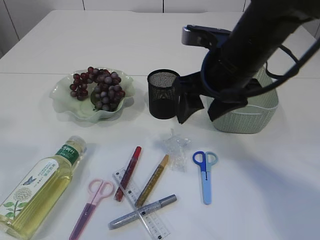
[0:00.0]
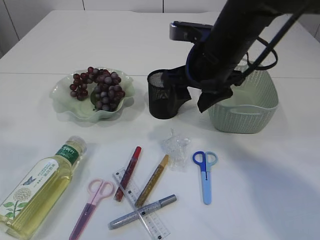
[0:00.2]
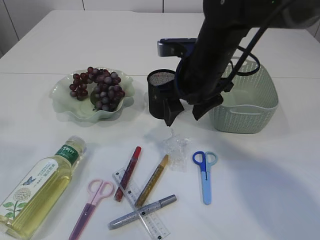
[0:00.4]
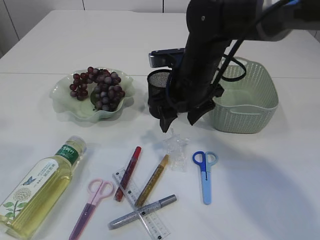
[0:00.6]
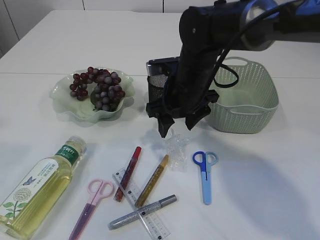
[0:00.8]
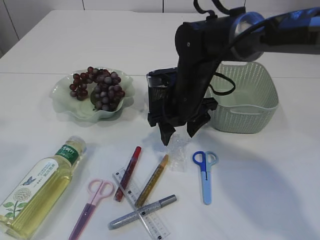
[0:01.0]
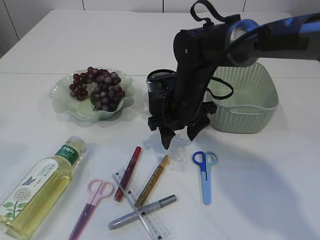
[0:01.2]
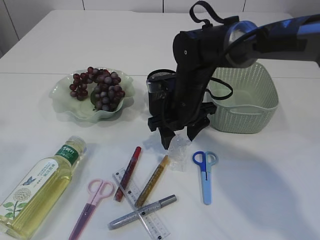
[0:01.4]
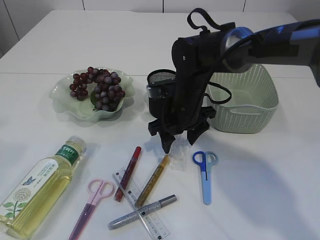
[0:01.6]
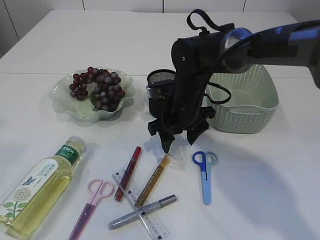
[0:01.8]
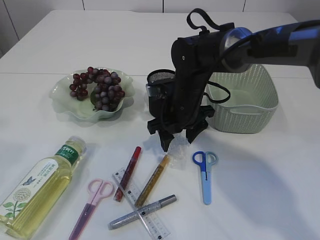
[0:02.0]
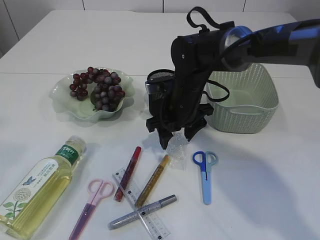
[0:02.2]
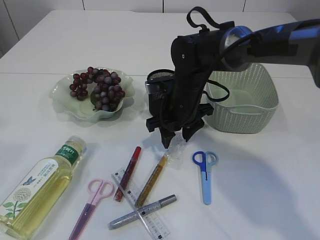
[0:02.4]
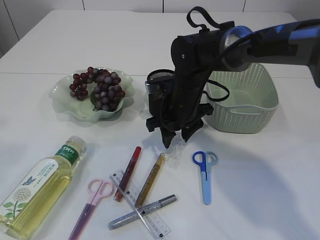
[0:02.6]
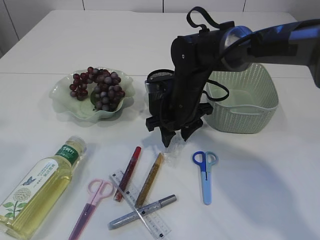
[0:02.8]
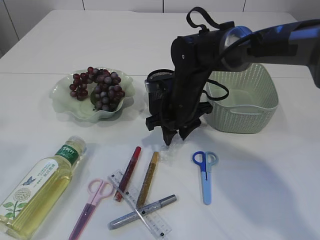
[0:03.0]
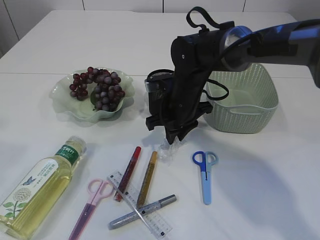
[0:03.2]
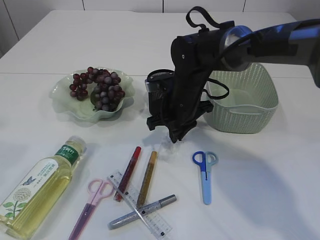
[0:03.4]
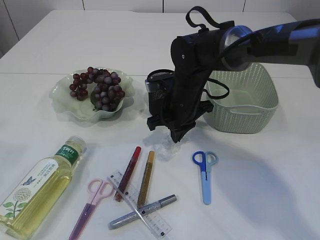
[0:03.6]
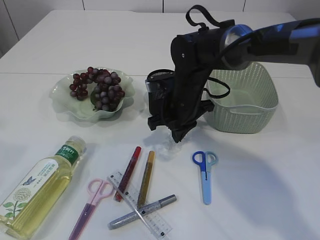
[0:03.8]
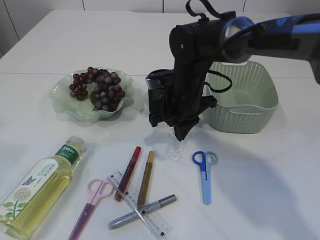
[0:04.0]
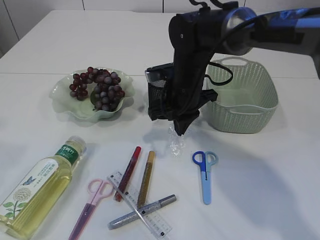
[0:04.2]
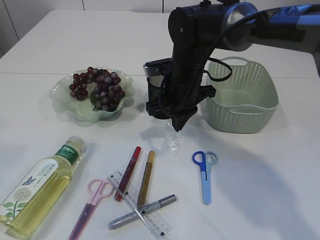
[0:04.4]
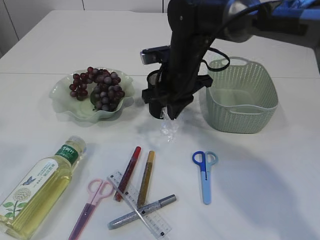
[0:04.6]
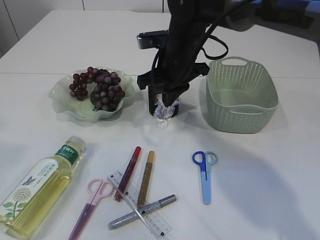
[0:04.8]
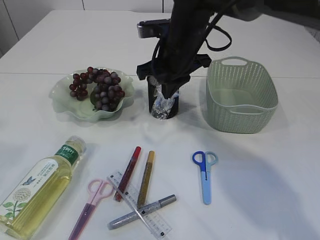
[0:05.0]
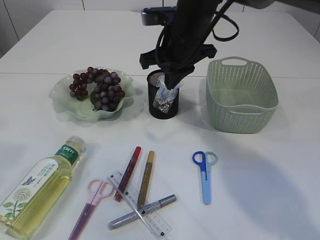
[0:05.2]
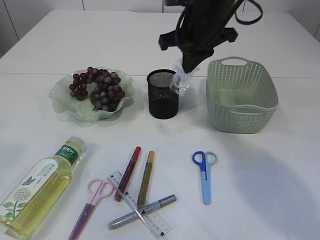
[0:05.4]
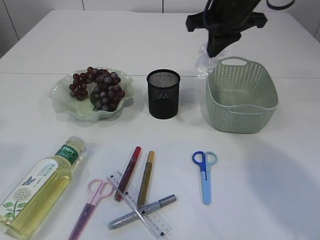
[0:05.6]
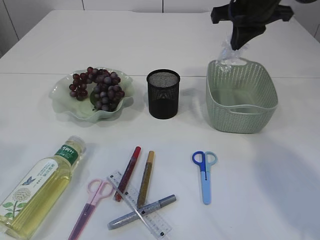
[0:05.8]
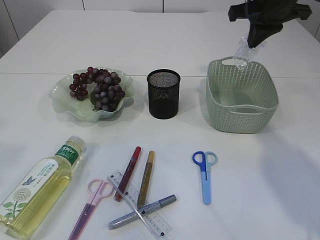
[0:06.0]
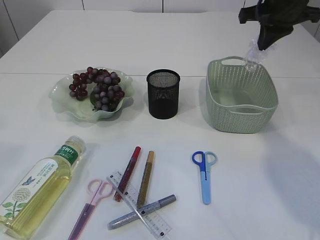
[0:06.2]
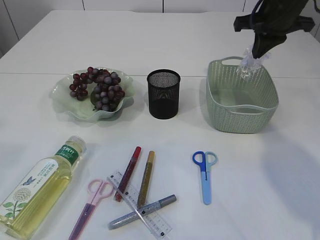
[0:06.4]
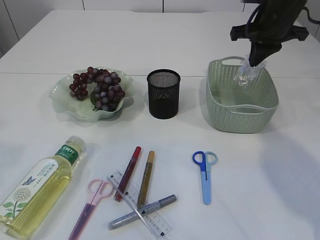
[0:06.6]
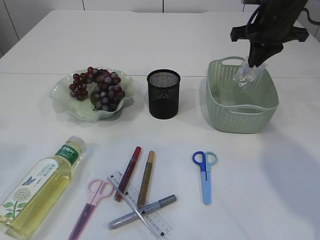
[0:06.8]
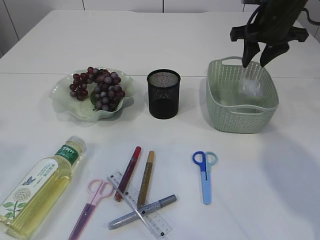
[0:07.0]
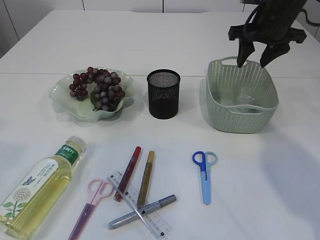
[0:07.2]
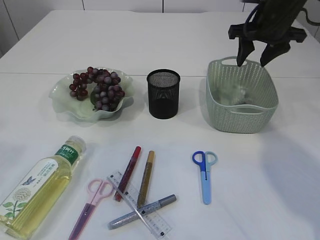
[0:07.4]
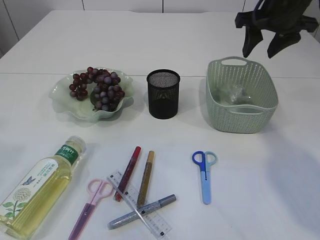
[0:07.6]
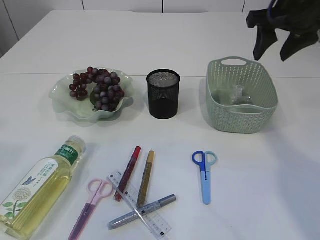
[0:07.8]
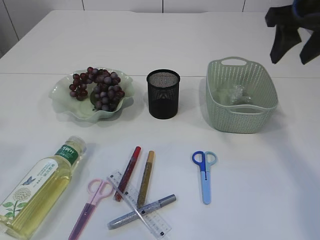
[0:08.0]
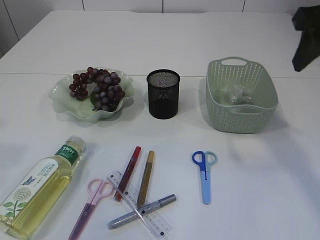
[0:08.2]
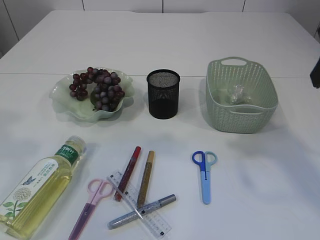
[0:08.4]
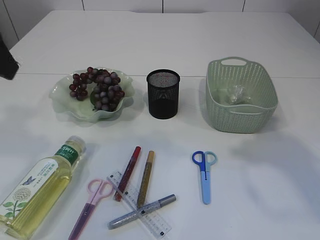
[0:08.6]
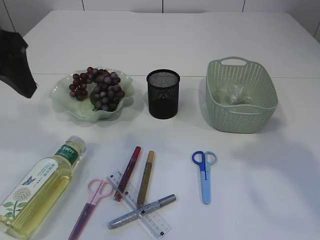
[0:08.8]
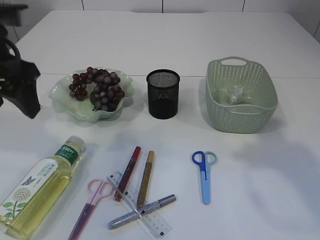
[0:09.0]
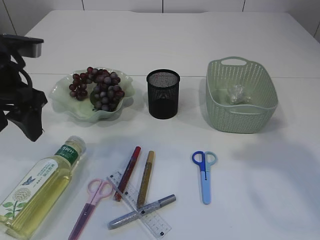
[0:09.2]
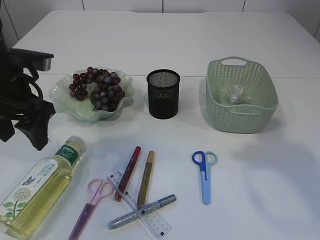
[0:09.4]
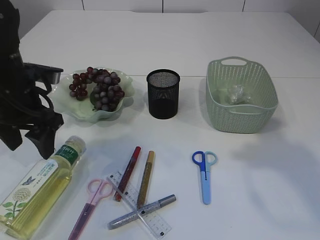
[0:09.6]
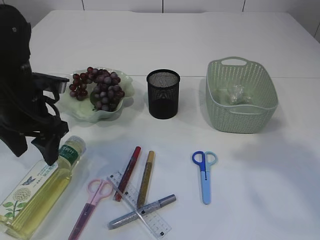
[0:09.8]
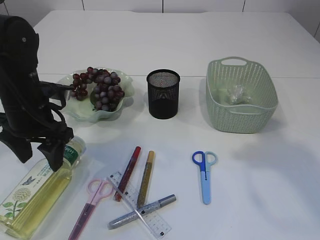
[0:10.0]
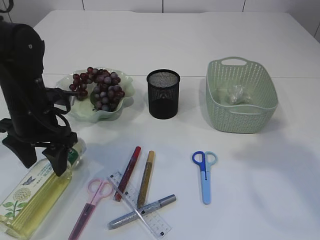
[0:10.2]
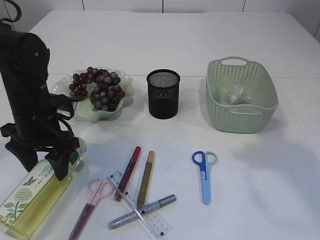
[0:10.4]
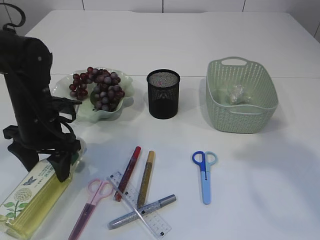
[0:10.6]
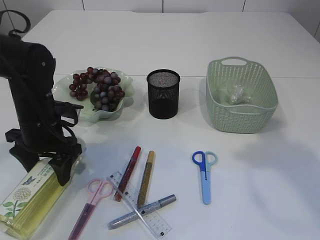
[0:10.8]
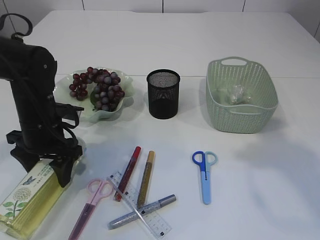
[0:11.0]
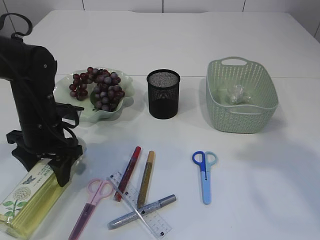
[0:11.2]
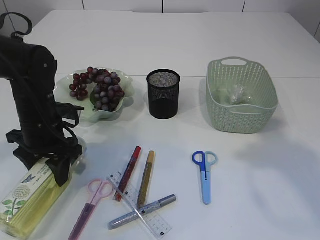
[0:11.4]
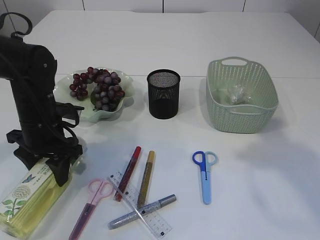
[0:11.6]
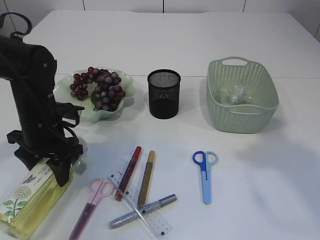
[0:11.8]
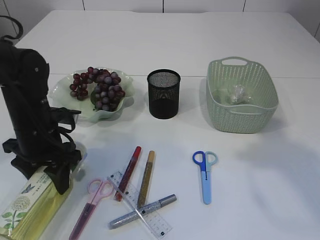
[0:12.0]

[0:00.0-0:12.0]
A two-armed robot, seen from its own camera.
Step, 0:00.0 to 0:04.2: Pick up the plastic.
Step, 0:04.4 to 0:07.2: Place the plastic in the basket.
0:00.0 to 0:01.6: The right gripper moves downward, forward and to the left, roughly 15 cm.
0:01.6 to 0:03.0: Both grippers stay put.
0:03.0 to 0:04.4: The right gripper closes up.
0:04.4 to 0:06.0: The right gripper heads to the right and upward, covering approximately 20 cm.
0:06.0 to 0:07.6: The right gripper opens its fingers.
0:07.6 to 0:09.0: The right gripper is displaced backward by approximately 25 cm. The left gripper goes roughly 15 cm downward and forward.
0:09.0 to 0:10.4: The left gripper is displaced downward by some 15 cm.
0:10.4 to 0:12.0: The grippers make only small movements.

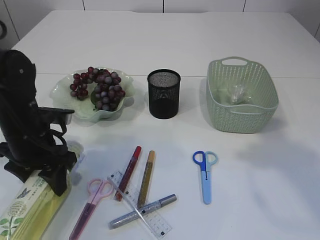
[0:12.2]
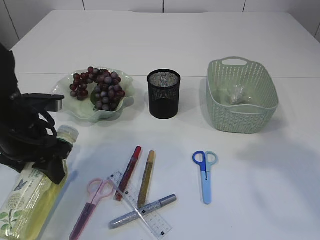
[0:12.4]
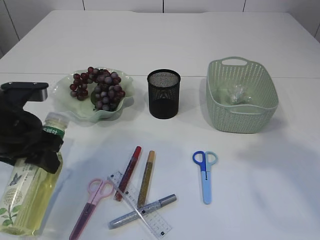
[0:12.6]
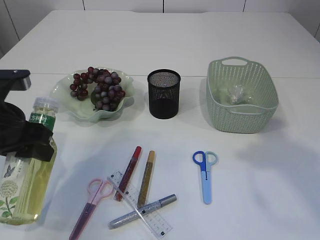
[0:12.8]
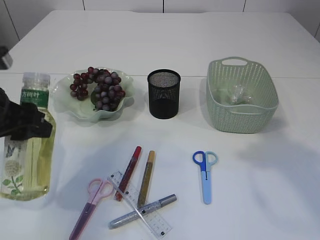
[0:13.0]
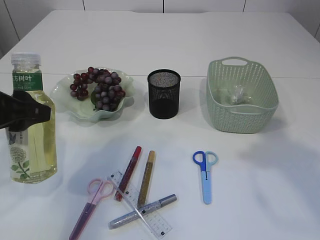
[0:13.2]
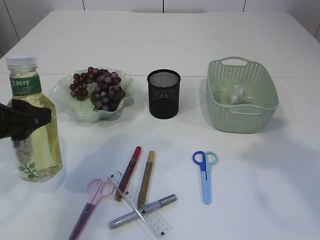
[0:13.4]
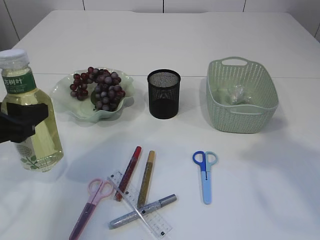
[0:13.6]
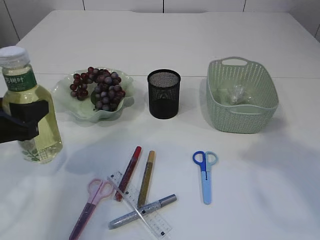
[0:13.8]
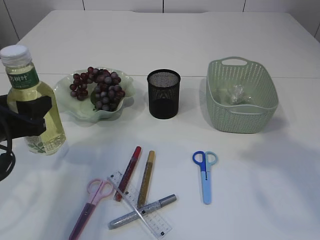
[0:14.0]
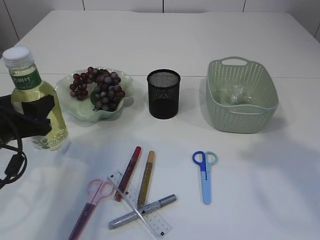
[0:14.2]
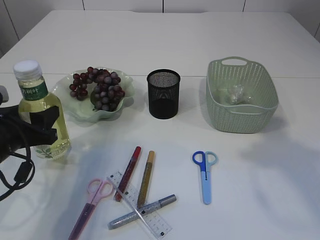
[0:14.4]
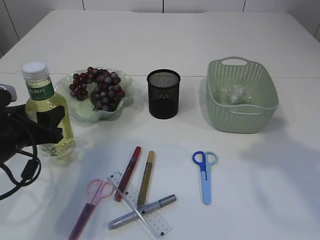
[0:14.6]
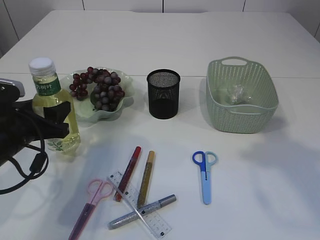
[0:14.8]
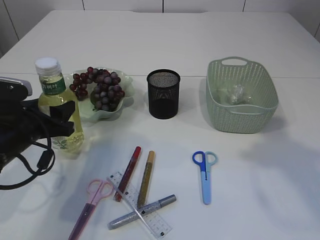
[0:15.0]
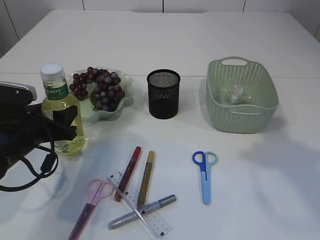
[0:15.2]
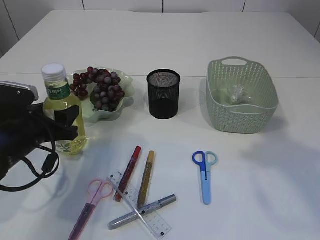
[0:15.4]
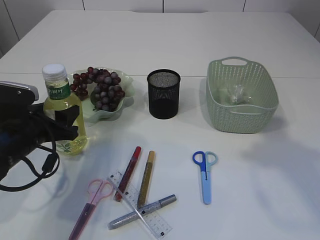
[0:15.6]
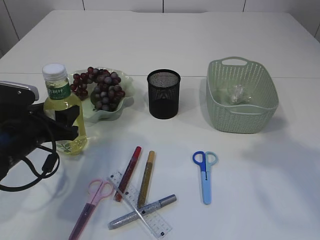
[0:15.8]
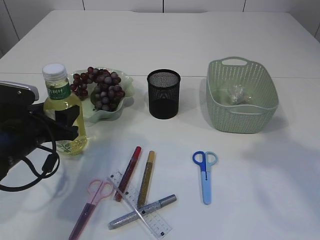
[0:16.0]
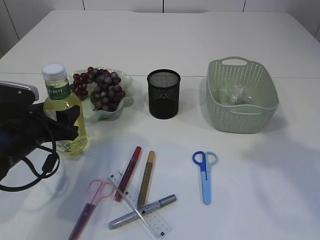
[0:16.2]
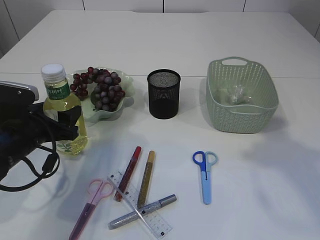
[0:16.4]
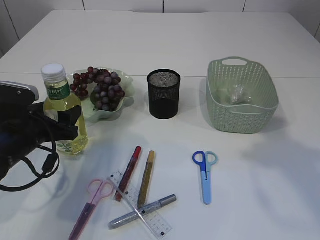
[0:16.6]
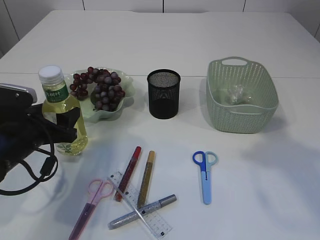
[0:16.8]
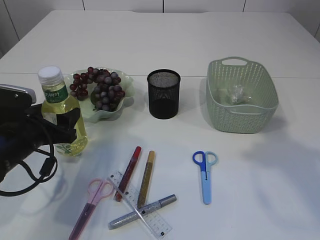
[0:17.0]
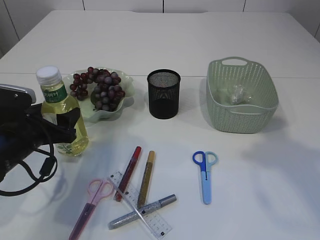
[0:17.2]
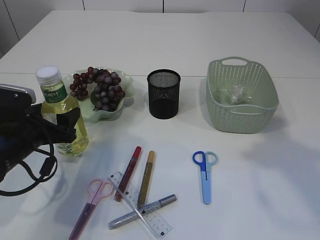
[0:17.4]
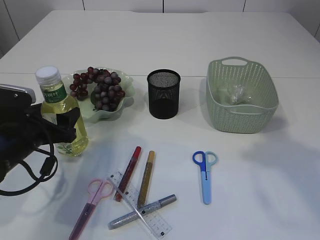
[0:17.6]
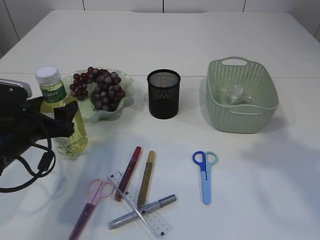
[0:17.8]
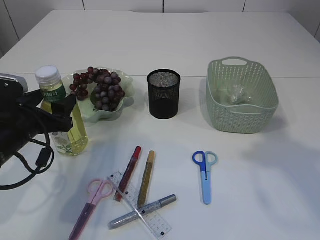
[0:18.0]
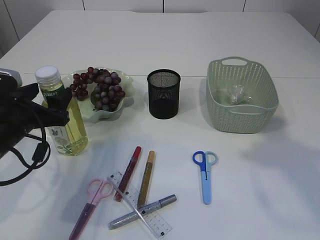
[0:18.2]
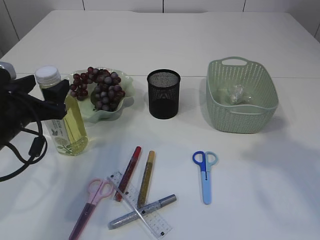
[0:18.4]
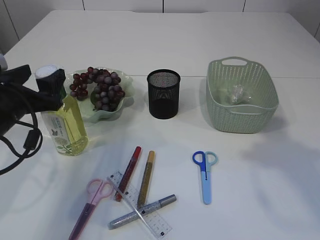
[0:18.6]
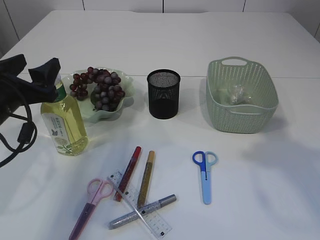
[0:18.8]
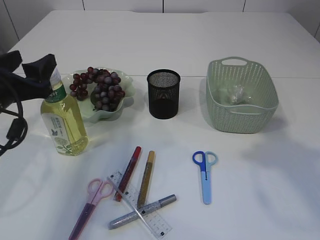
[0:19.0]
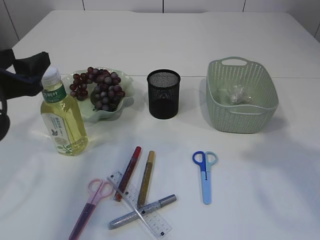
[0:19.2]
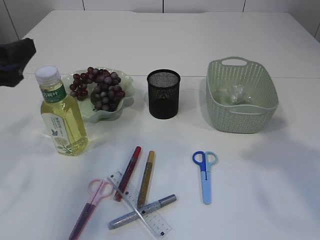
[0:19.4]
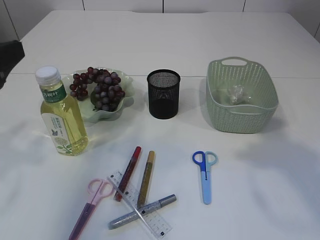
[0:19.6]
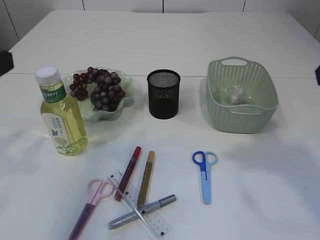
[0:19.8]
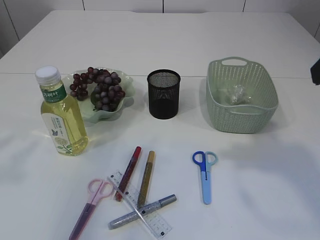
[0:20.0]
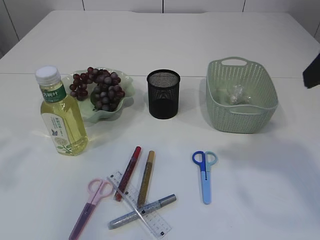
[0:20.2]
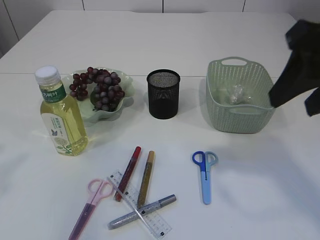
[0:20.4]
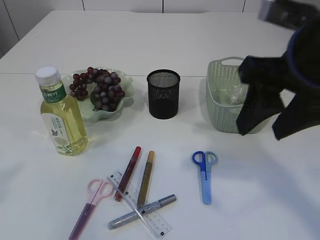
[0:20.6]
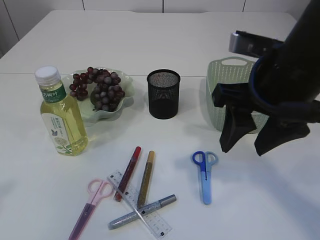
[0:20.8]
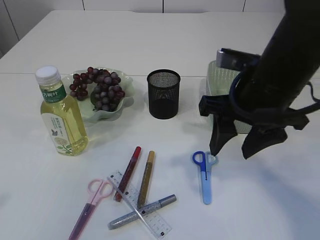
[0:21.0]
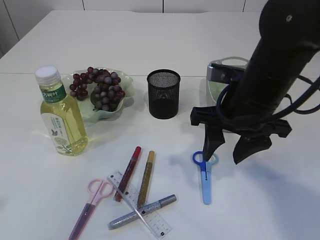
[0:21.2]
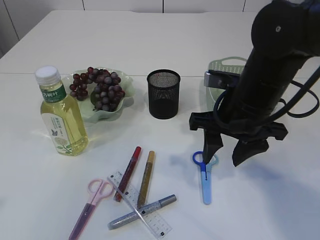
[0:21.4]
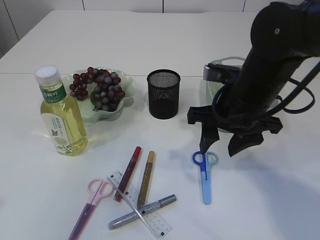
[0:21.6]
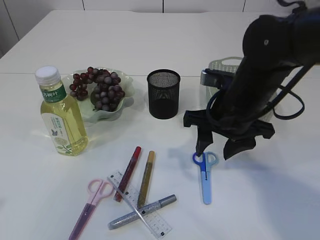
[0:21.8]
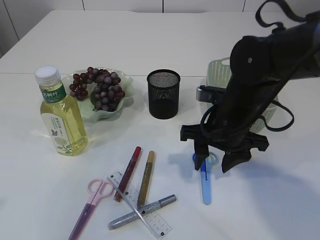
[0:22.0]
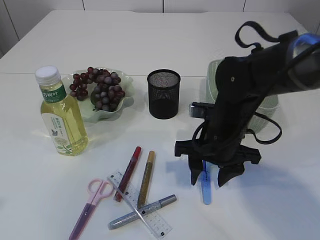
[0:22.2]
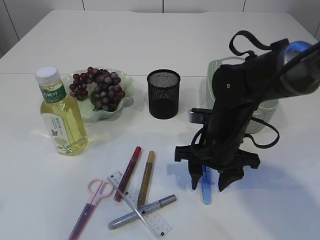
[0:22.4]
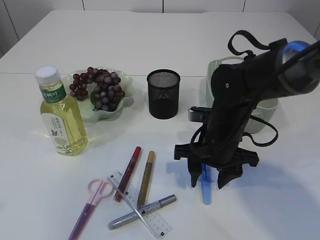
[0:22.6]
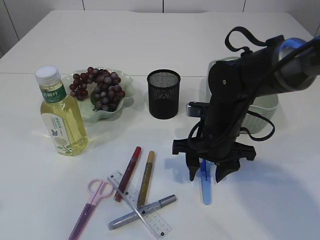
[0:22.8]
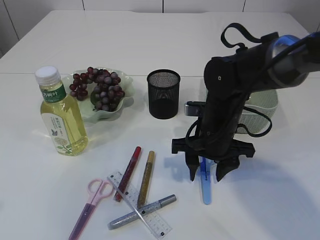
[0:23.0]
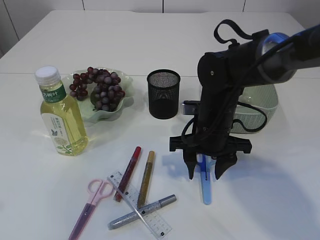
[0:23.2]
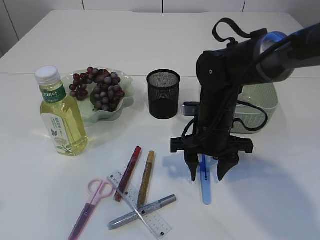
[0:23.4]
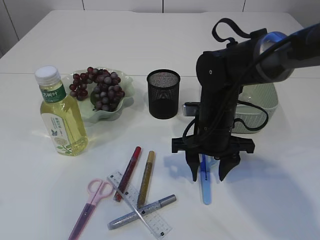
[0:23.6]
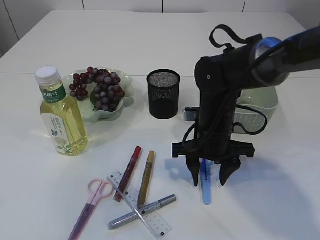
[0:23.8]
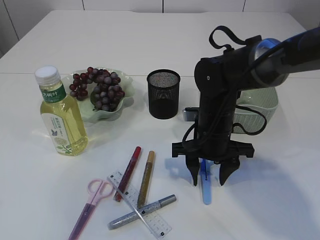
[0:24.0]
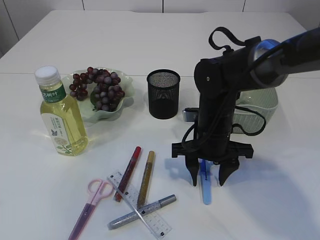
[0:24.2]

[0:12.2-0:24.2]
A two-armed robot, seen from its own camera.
Step, 0:13.8 to 0:18.8: Place the bottle.
0:12.2 to 0:13.8: The left gripper heads backward and upward, covering about 10 cm.
0:13.8 to 0:15.2: The left gripper travels downward and forward by about 10 cm.
0:15.2 to 0:16.6: Both grippers stay about where they are.
0:16.6 to 0:18.2: There are only small adjustments of the grippers.
0:18.2 to 0:19.8: The left gripper moves upward and backward, roughly 20 cm.
0:19.8 to 0:21.2: The left gripper is displaced backward and upward by about 10 cm; the right gripper shifts some 20 cm downward, to the left and forward.
0:21.2 to 0:22.6: The right gripper goes roughly 10 cm downward.
0:22.6 to 0:24.2: There are only small adjustments of the grippers.
